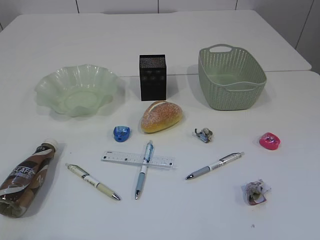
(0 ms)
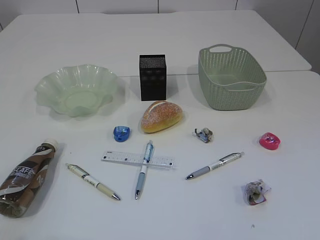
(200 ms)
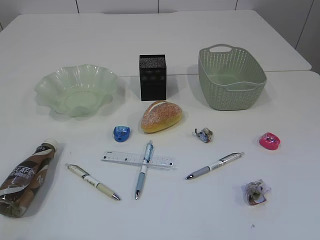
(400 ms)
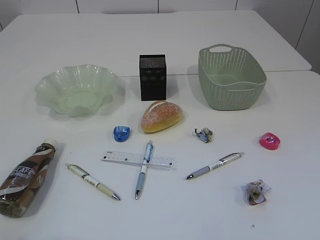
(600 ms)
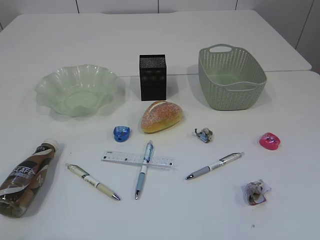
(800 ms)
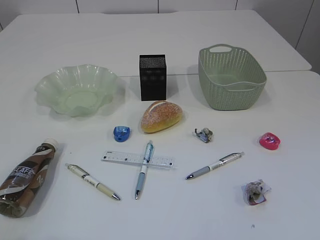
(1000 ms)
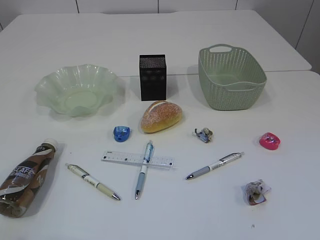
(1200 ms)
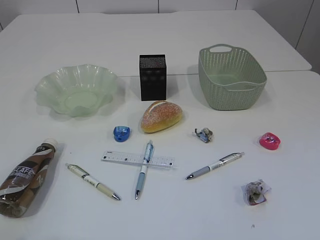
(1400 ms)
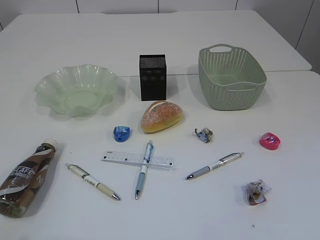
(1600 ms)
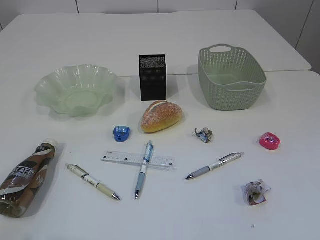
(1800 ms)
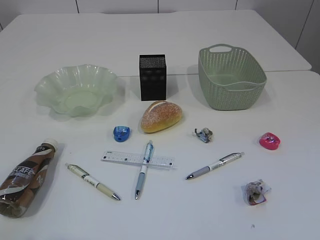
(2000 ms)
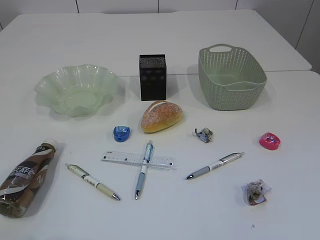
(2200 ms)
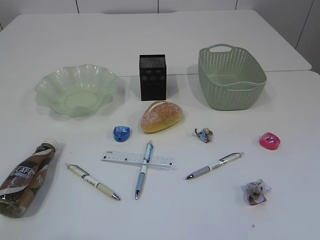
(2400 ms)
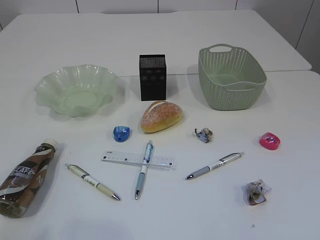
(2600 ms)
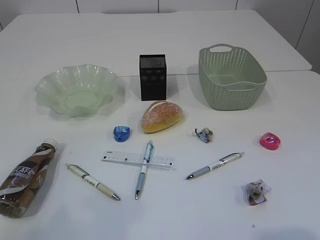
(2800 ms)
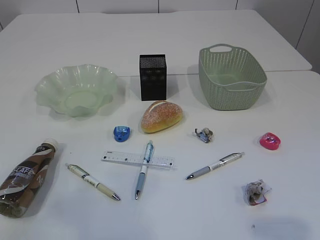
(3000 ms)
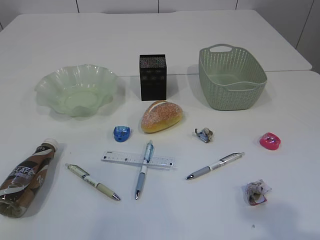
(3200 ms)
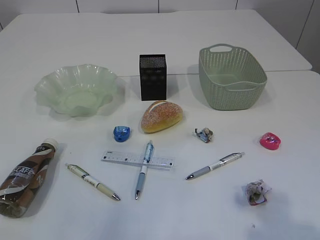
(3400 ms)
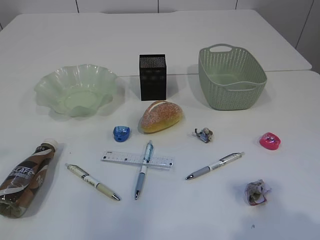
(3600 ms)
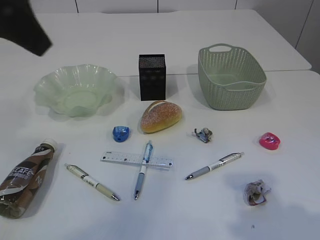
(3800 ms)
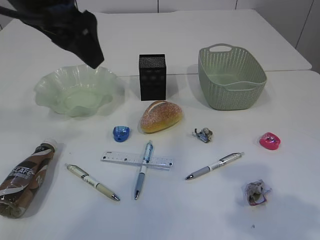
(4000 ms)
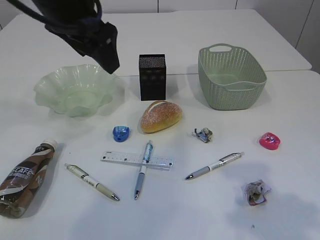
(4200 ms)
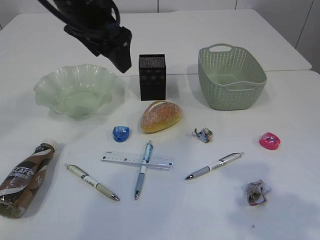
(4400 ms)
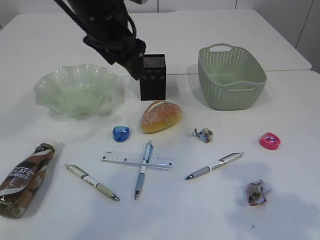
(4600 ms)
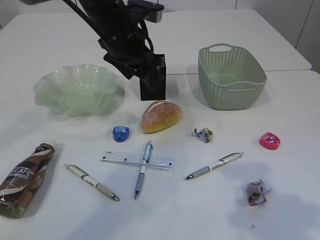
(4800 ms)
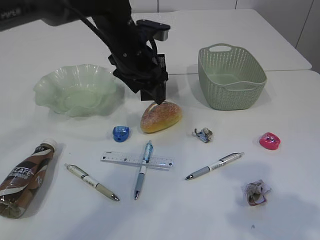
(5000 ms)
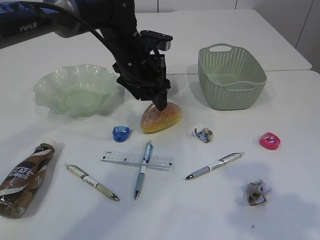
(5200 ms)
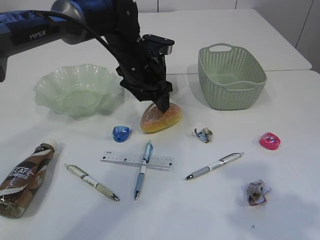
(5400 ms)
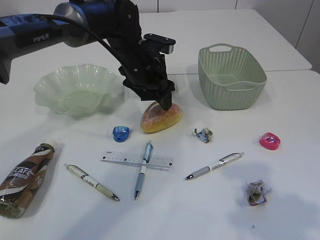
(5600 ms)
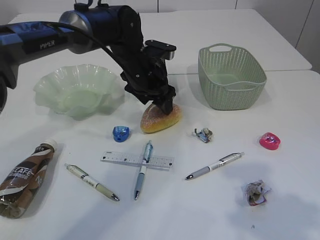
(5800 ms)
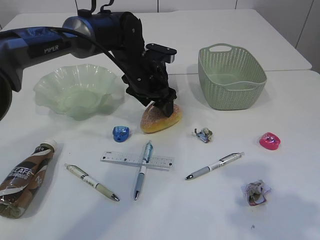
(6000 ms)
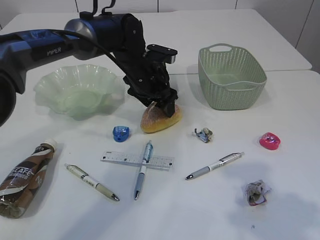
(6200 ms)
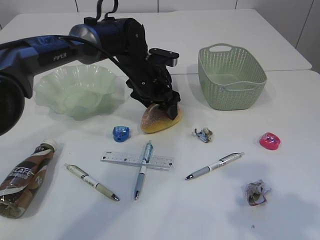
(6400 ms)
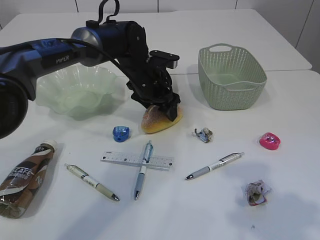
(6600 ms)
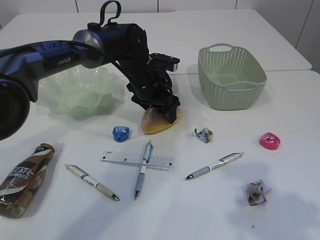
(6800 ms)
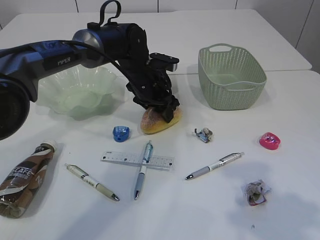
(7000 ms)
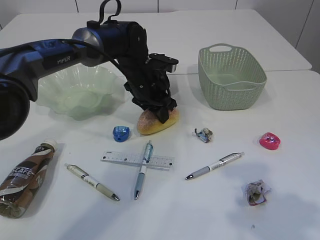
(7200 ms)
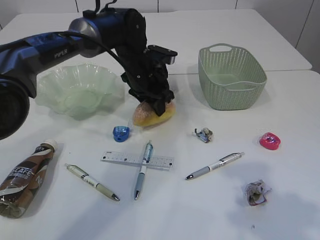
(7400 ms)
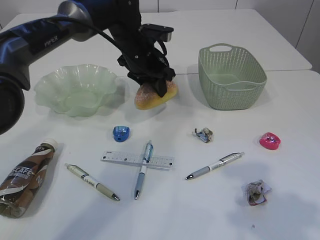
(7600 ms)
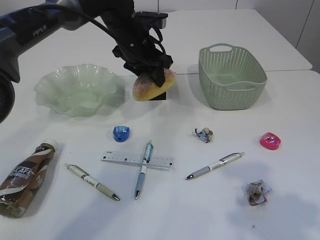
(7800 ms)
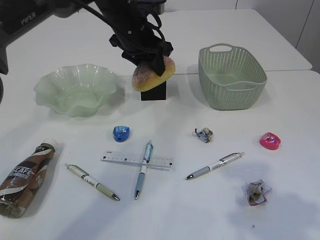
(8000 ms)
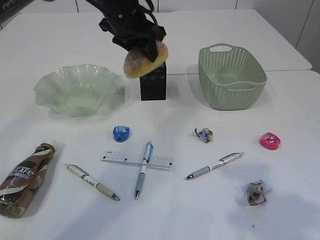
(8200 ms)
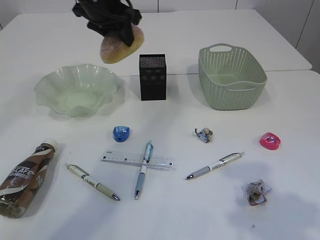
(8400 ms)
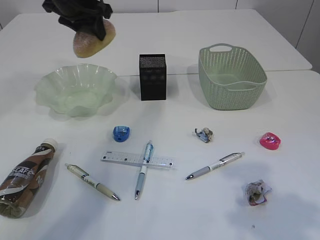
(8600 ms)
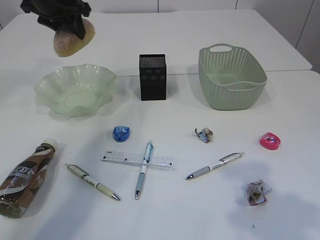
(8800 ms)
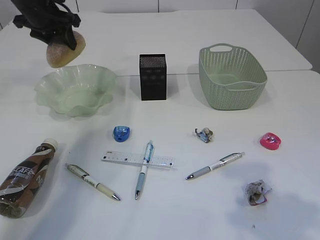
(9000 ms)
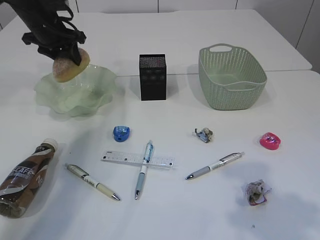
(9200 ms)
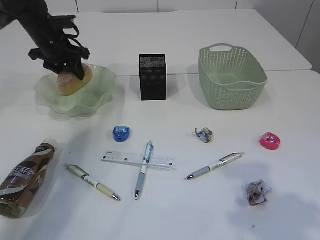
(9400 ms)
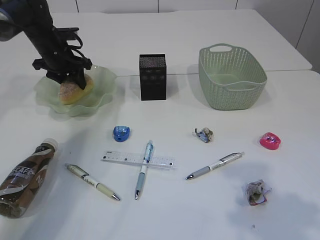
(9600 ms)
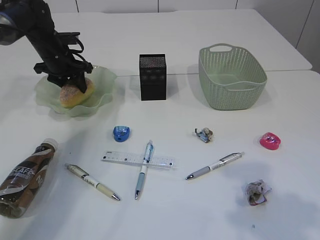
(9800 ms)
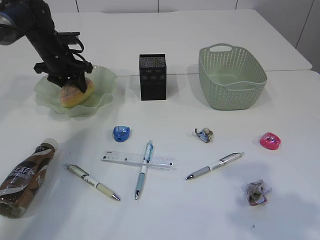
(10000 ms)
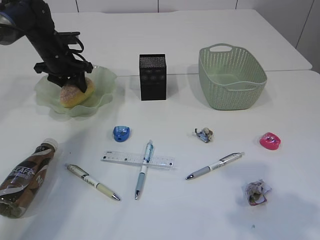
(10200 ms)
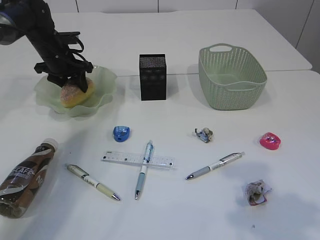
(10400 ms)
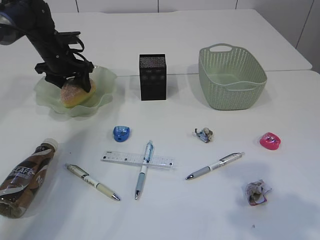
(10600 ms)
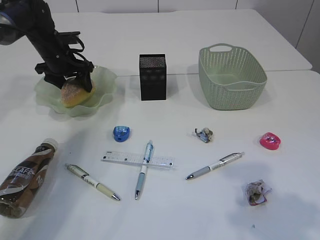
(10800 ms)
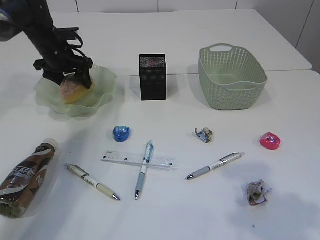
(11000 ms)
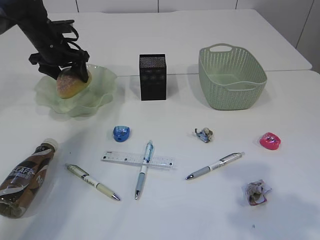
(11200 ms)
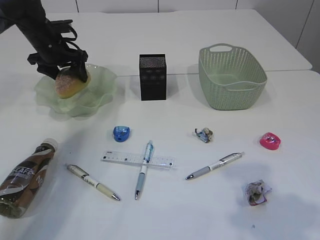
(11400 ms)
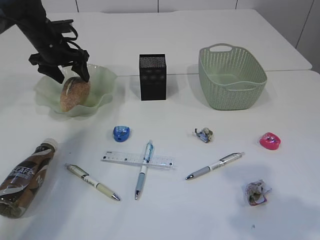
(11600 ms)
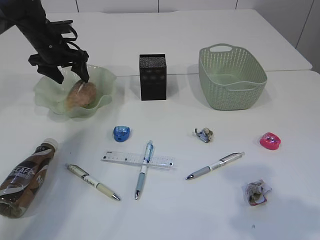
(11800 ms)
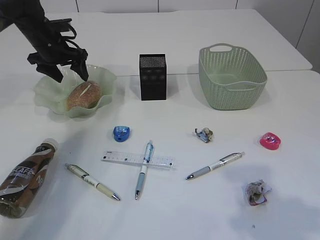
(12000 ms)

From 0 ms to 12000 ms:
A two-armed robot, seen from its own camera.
From 3000 ms to 4400 ms: The left gripper heads forward and to the right, covering about 35 cm, while the right gripper goes approximately 10 cm forward.
From 4400 ms to 6000 ms: The left gripper is displaced downward and forward by about 20 cm.
From 6000 ms to 7600 ms: The left gripper closes up.
From 7600 ms to 9000 ms: The left gripper is displaced to the left and upward by about 20 cm.
From 9000 ms to 10400 ms: The left gripper heads downward, covering about 10 cm.
From 10400 ms to 12000 ms: The left gripper opens its fingers.

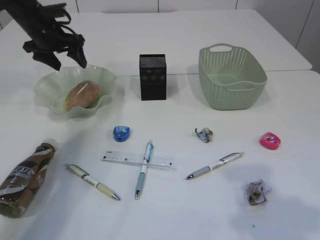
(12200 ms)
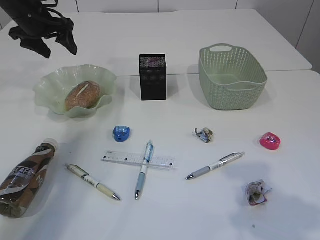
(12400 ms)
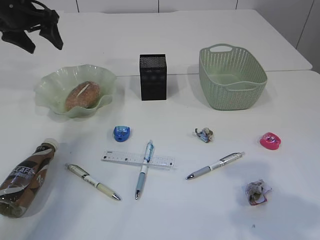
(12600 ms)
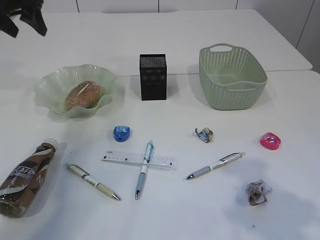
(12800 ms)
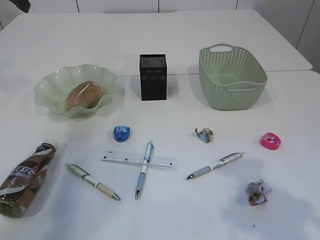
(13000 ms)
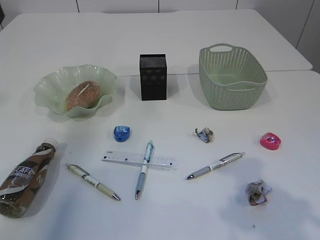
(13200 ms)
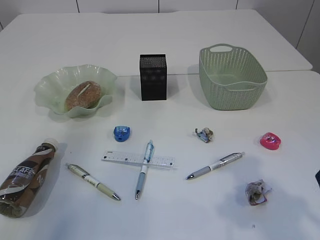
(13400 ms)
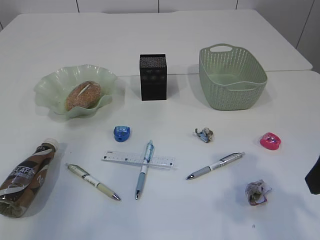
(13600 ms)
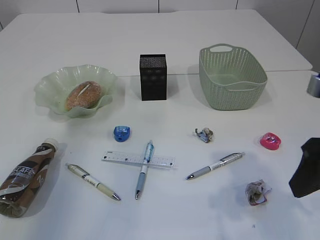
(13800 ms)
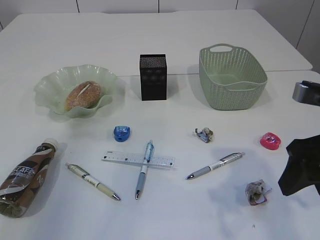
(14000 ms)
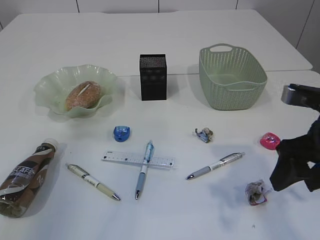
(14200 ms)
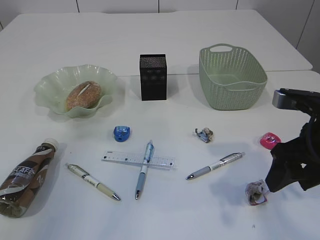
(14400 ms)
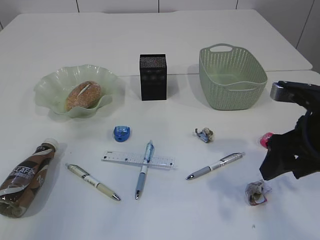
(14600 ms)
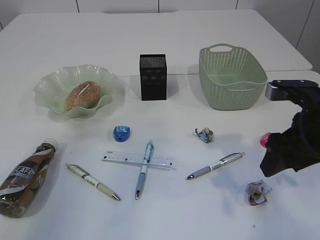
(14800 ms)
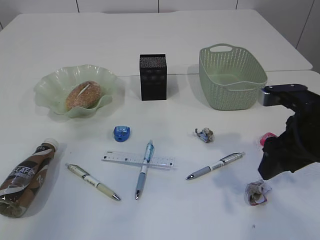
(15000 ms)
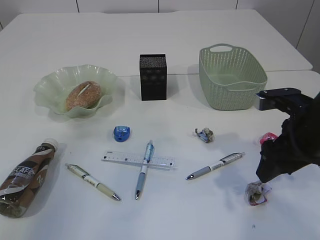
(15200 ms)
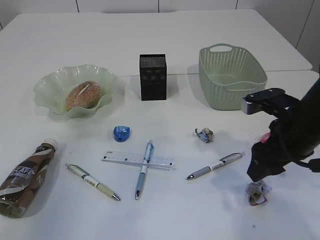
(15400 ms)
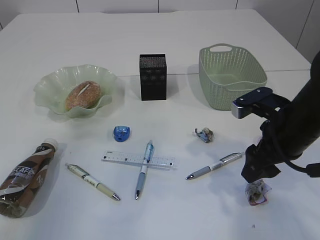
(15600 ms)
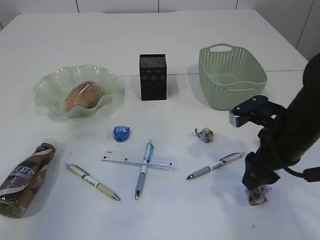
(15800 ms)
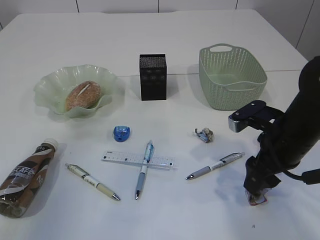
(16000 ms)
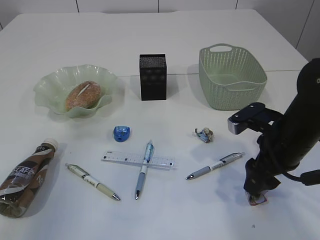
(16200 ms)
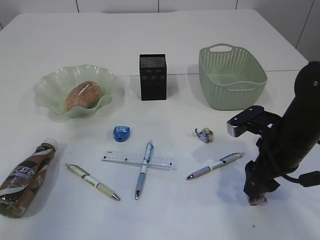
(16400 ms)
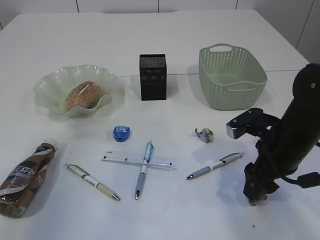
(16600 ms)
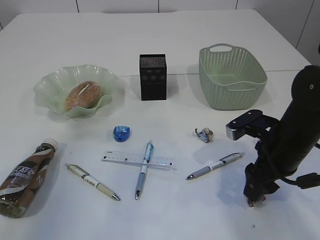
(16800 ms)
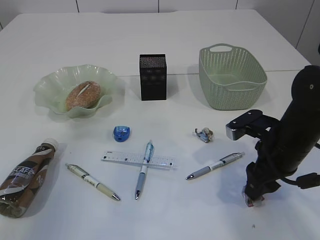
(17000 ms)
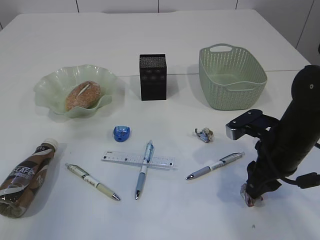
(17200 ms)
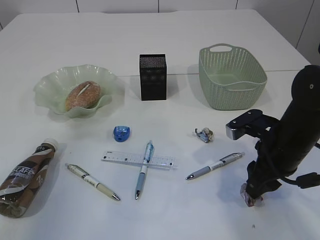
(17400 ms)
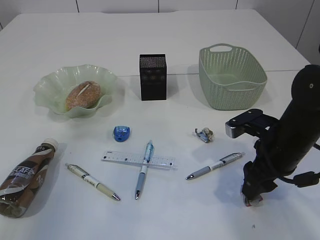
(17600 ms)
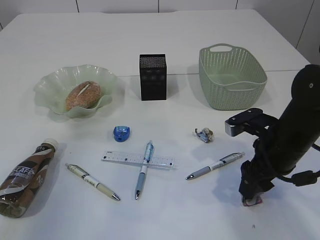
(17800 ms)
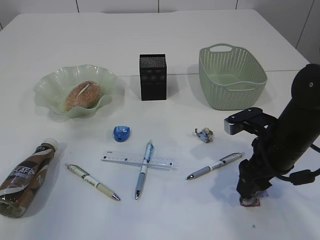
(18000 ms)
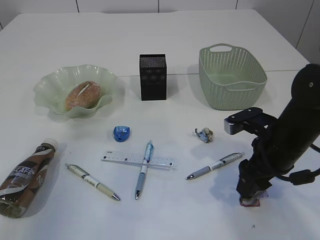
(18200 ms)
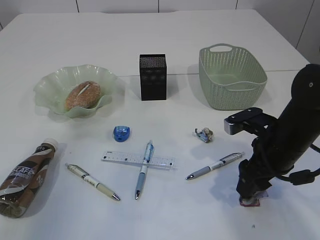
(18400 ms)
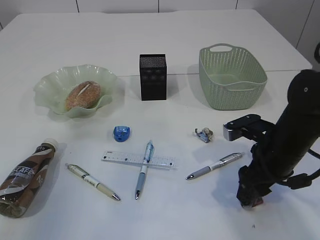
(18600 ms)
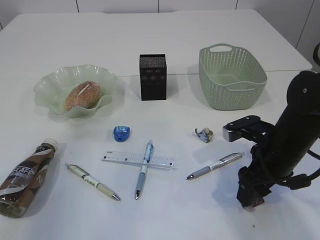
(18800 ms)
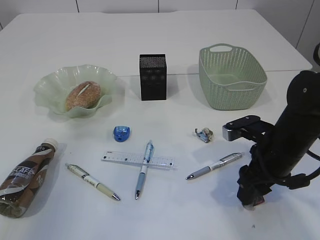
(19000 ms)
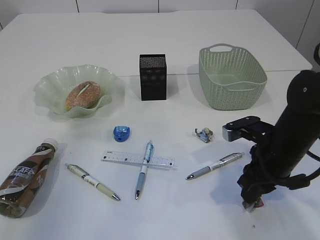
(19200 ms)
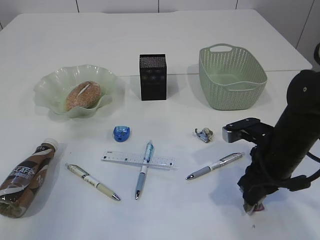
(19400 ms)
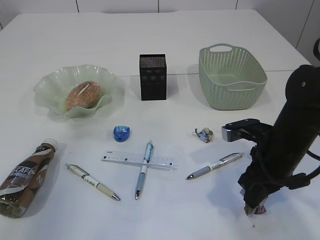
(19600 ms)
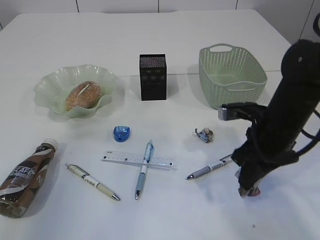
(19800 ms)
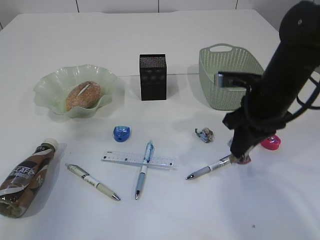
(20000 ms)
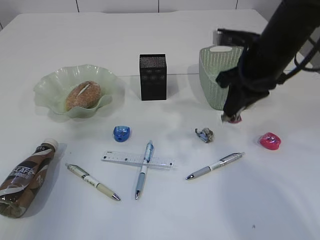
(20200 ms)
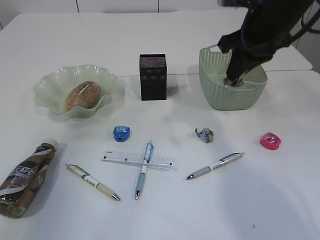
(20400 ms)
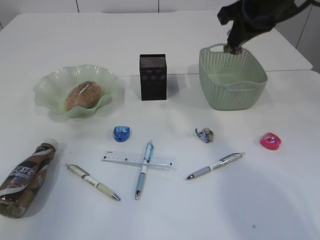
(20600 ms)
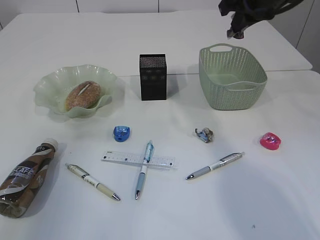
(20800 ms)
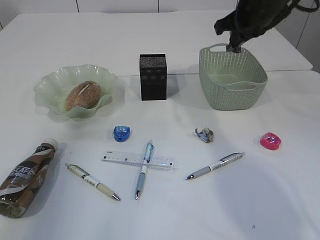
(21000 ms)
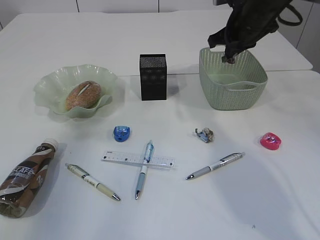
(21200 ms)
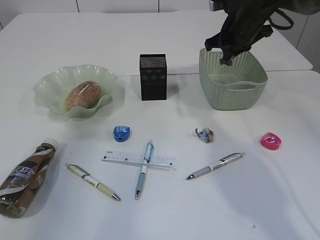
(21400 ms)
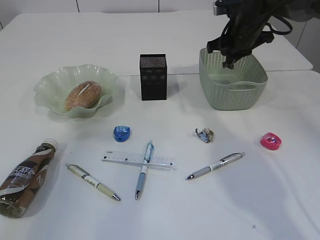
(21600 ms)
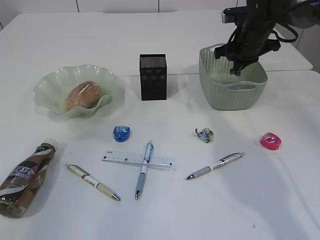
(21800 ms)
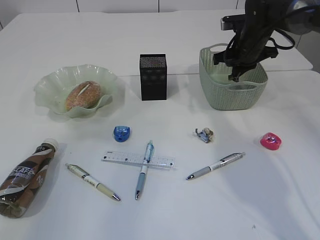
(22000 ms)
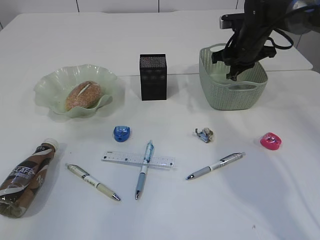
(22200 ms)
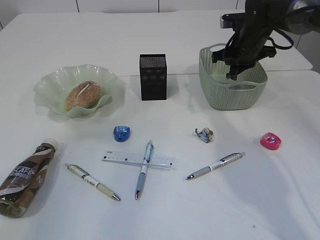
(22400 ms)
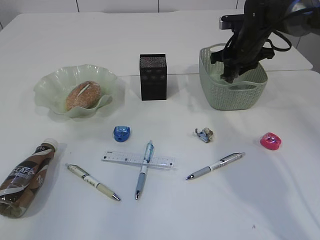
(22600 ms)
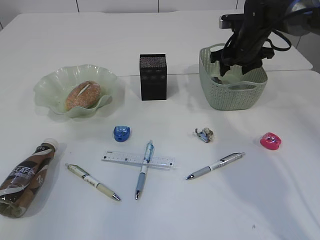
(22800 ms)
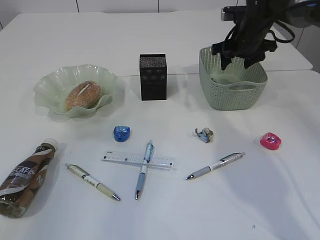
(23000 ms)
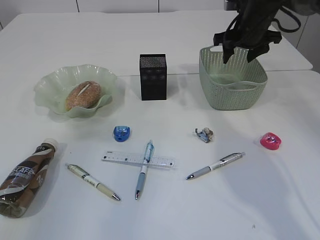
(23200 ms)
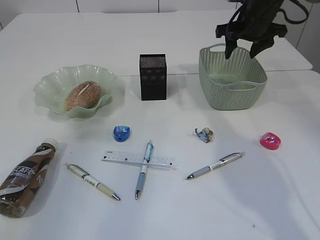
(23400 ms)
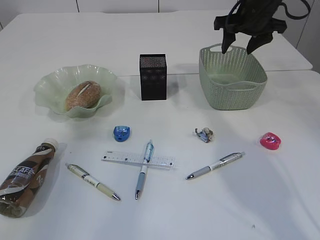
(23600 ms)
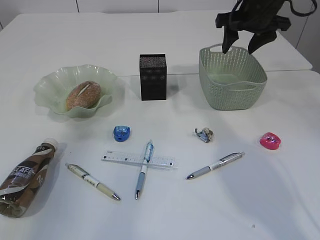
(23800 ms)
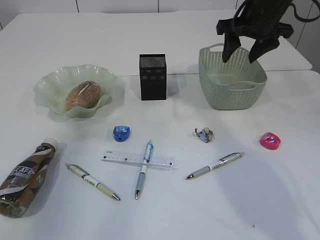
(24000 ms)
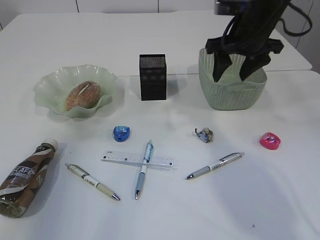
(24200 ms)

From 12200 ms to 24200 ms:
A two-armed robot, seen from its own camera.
Step, from 12600 ms to 19800 ms: Pick up the waste paper.
Step, from 20000 ms to 23200 ms: Place the waste paper in the basket.
From 12200 ms to 13800 ms: The left gripper moves backward and upward, about 30 cm. The right gripper moves forward, some 5 cm.
From 13800 ms to 15200 ms: The right gripper is displaced forward and downward by some 10 cm.
From 15200 ms to 16600 ms: The right gripper is displaced downward by roughly 5 cm.
From 16600 ms to 18200 ms: There are only small adjustments of the grippers.
From 18200 ms to 19800 ms: The right gripper closes up.
From 19800 ms to 21200 ms: The right gripper heads forward and upward, covering about 20 cm.
From 21200 ms to 22600 ms: The right gripper goes roughly 10 cm downward and forward, and opens.
From 22600 ms to 24200 ms: The right gripper goes some 10 cm upward and backward, and opens its fingers.
